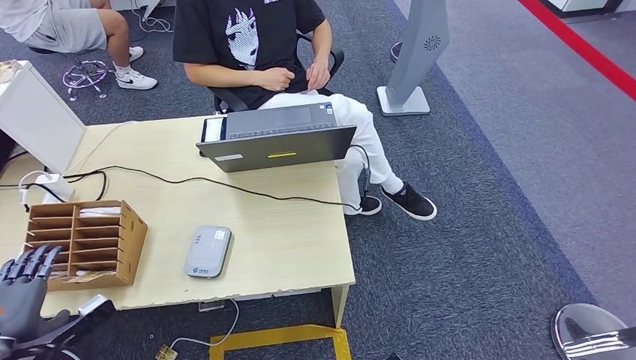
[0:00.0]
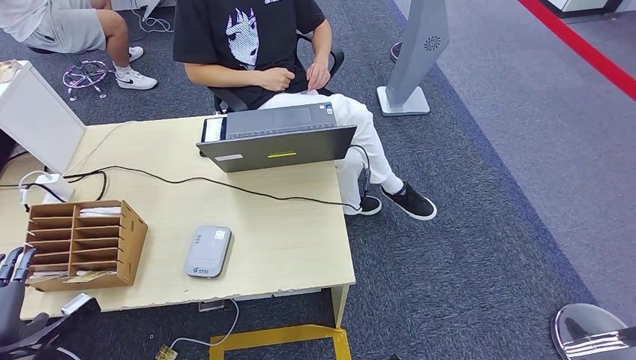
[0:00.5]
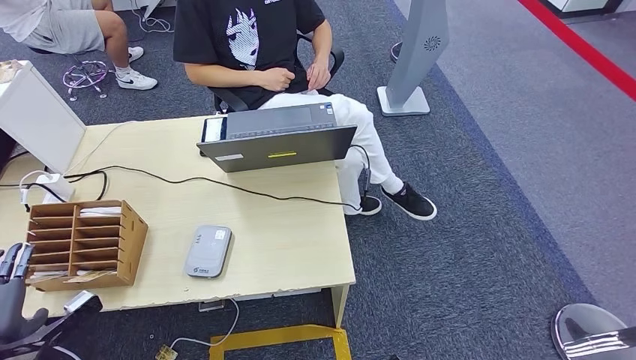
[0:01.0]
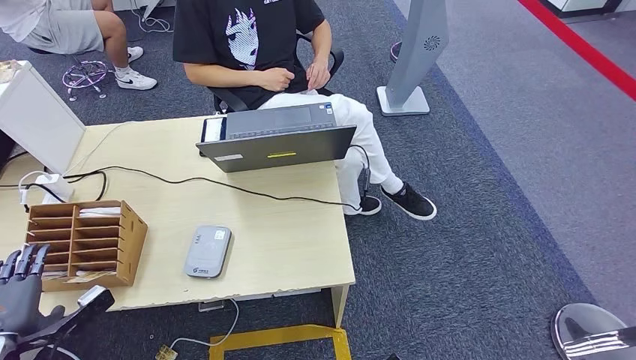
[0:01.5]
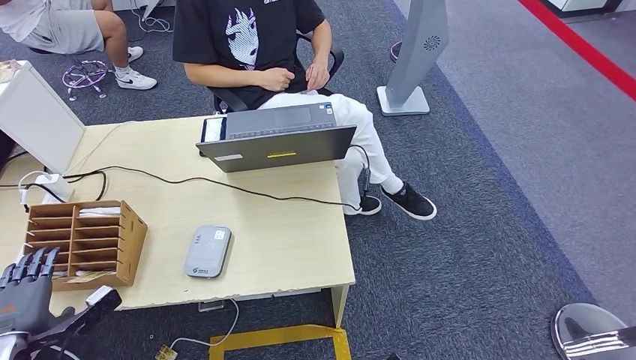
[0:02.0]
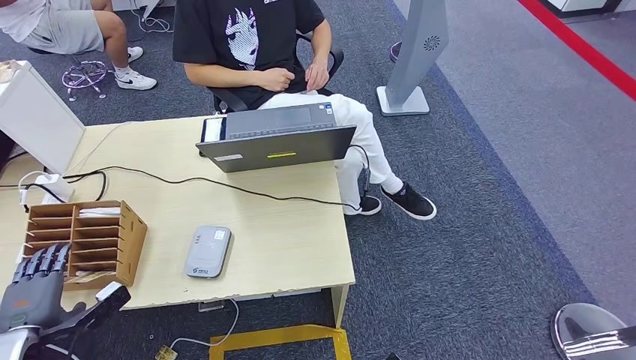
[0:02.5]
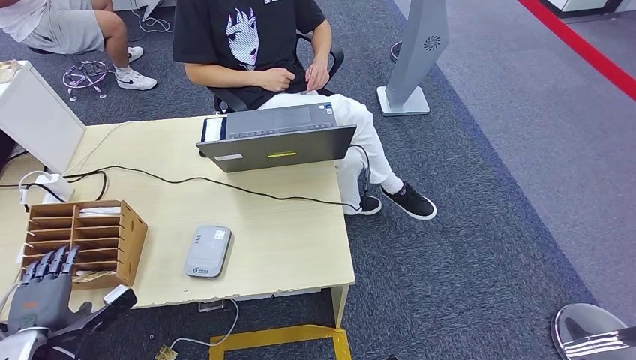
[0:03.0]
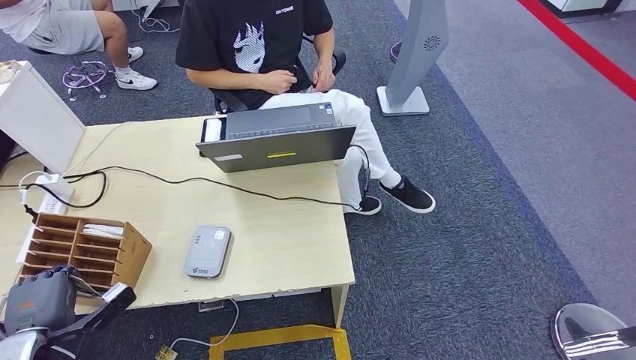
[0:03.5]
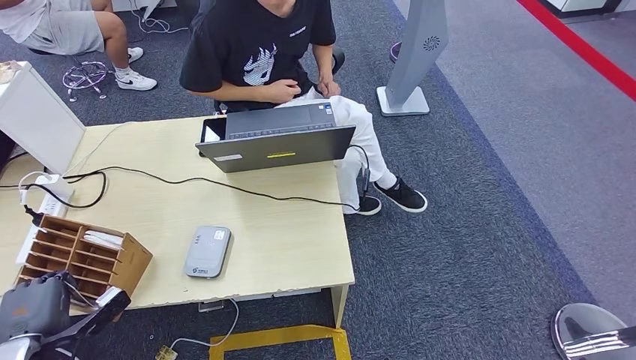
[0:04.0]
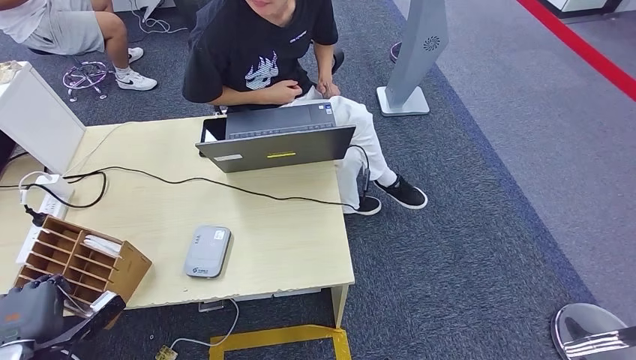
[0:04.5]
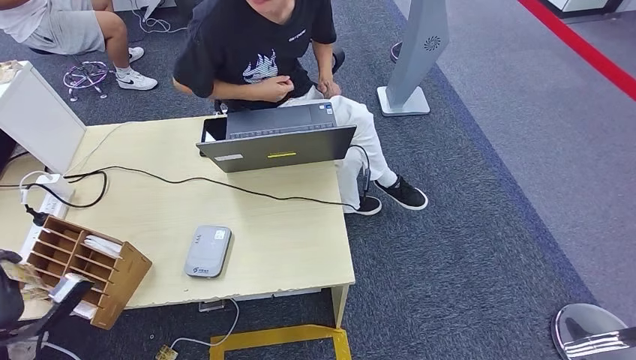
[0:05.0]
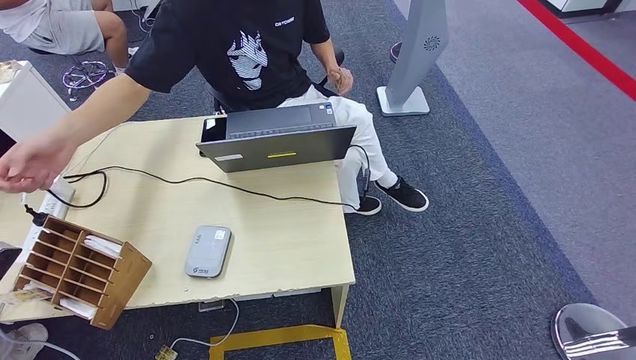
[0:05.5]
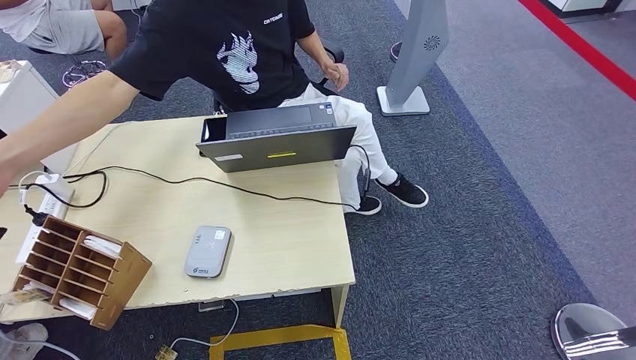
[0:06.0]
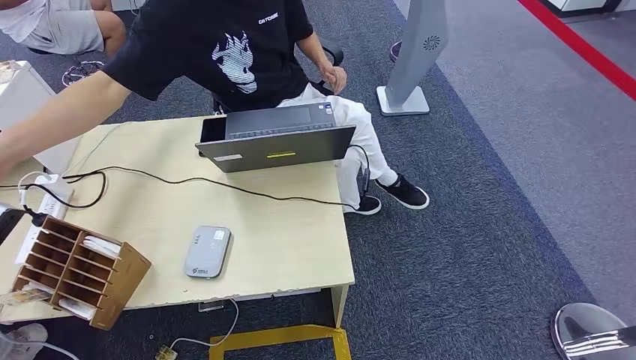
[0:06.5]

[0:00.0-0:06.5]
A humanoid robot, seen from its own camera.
Step, 0:00.0 to 0:04.5: Pick up the room key from the key card box.
Step, 0:05.0 to 0:06.0: Hand the room key to the person.
0:00.0 to 0:04.5: There are only small adjustments of the hands.
0:04.5 to 0:06.5: The left hand heads upward and forward, covering approximately 20 cm.

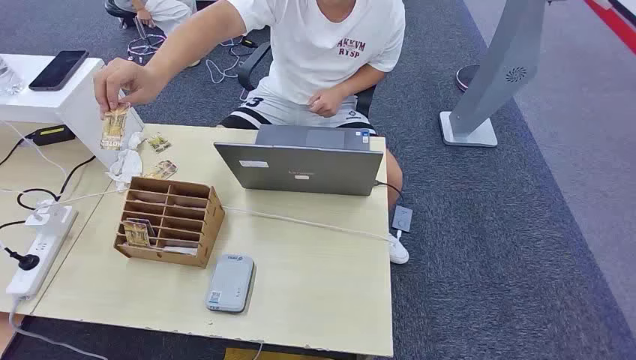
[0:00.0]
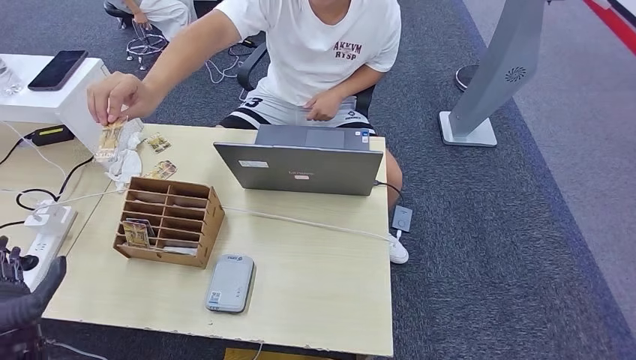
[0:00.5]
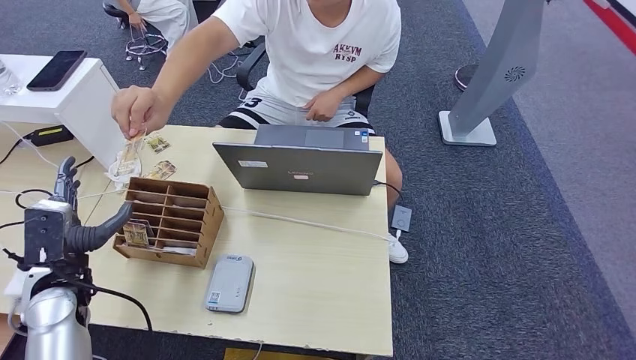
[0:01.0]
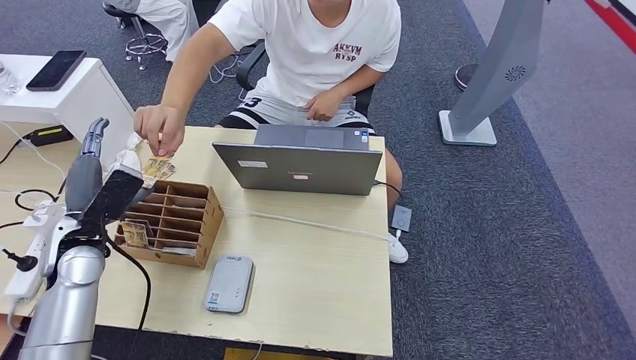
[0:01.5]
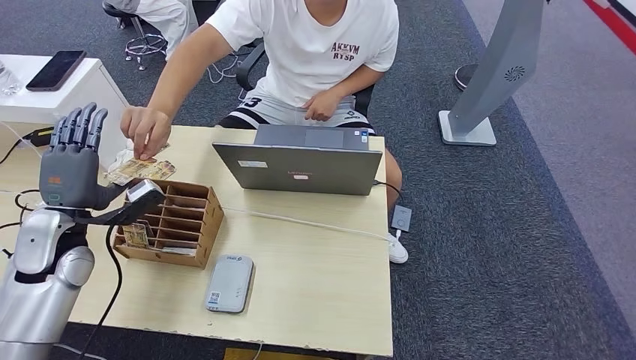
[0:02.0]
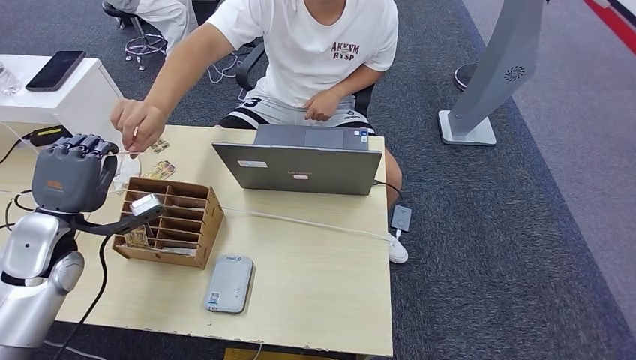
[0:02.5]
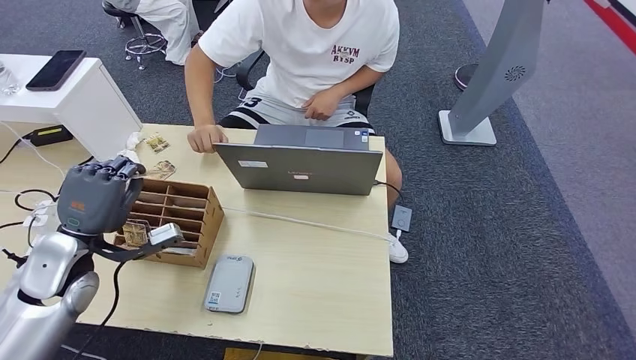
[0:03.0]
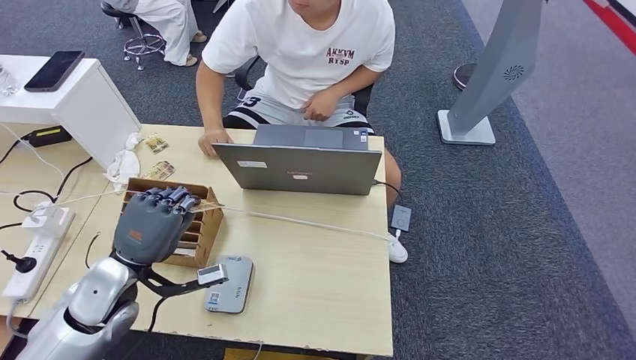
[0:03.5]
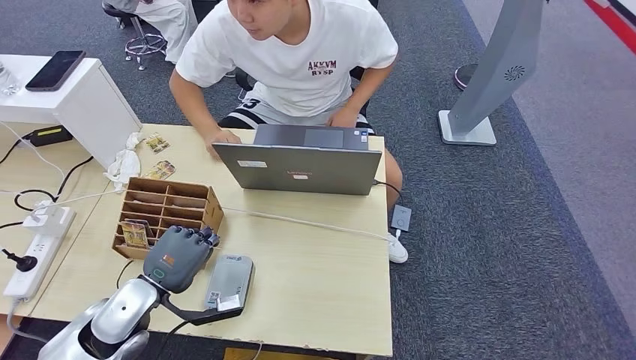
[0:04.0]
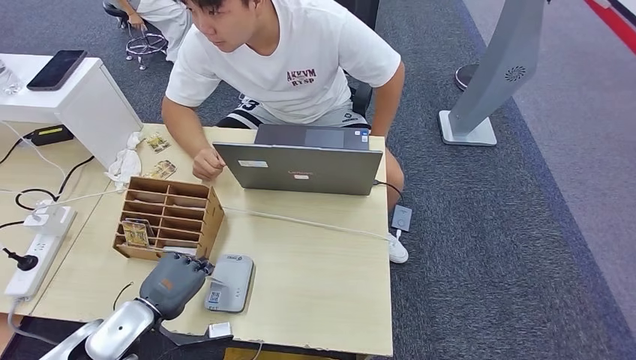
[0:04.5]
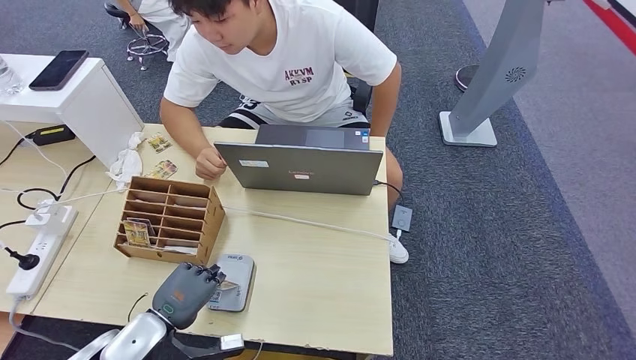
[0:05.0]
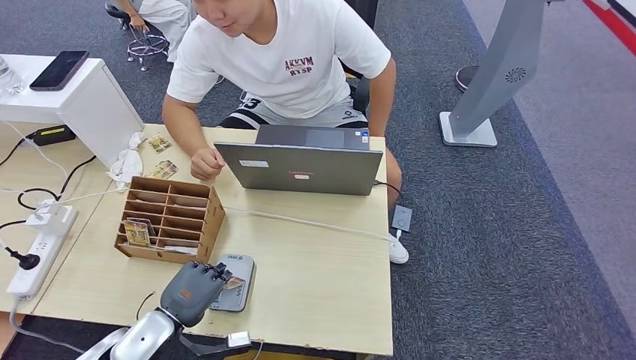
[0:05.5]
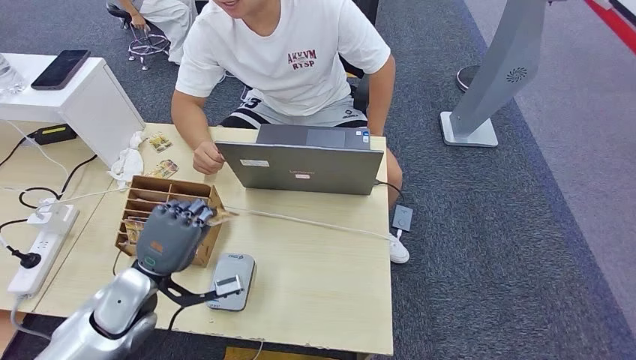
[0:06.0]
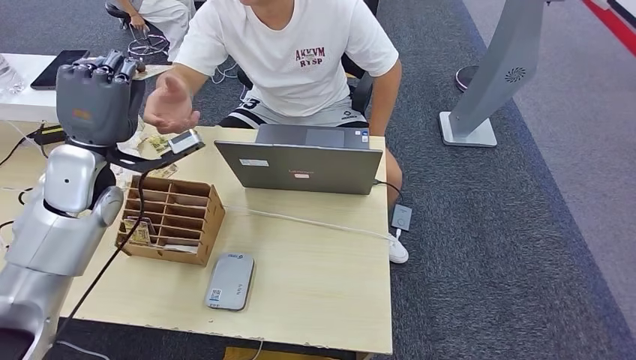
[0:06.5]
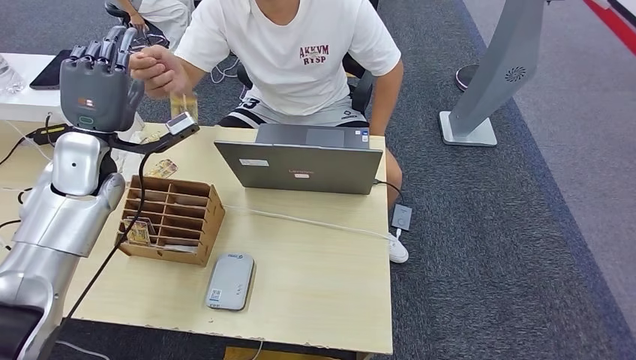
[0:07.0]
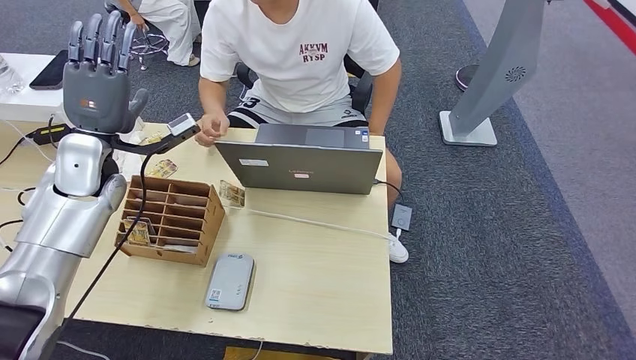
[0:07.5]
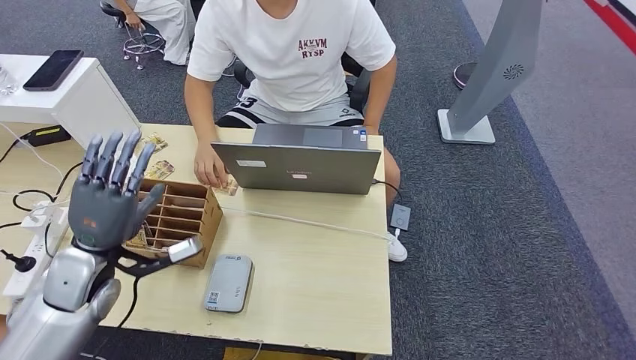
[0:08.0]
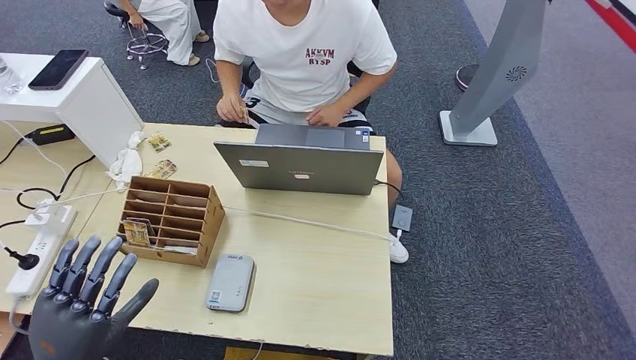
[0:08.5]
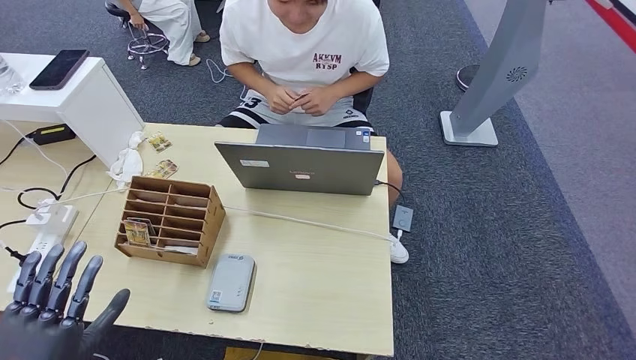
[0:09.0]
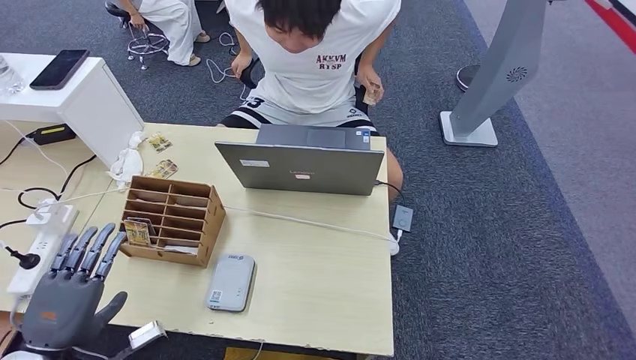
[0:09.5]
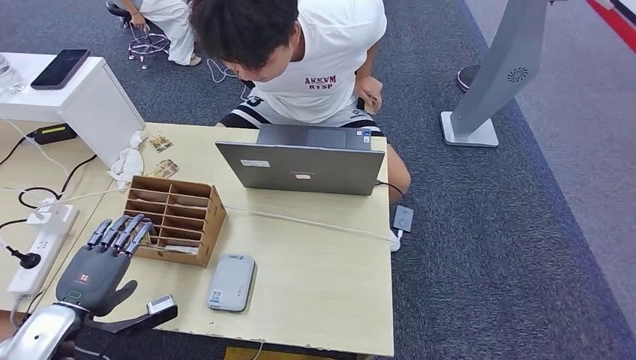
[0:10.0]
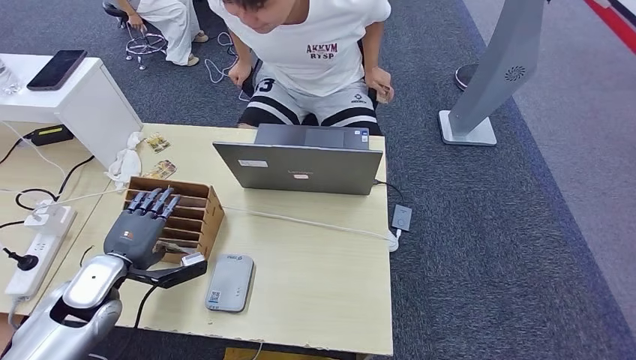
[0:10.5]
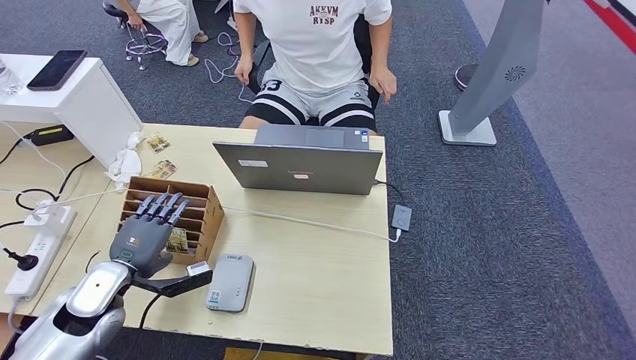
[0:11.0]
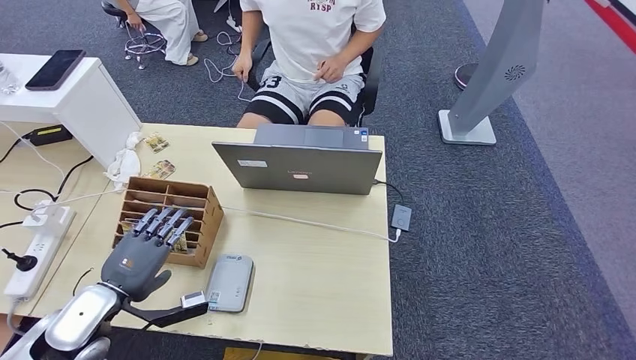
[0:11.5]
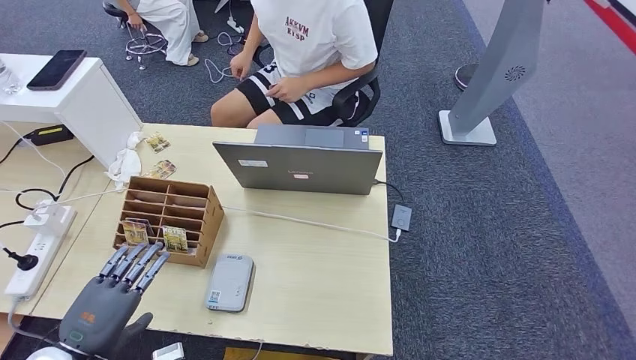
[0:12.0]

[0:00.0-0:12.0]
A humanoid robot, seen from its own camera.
Step, 0:00.0 to 0:03.0: Take the ID card from the person's hand.
Step, 0:03.5 to 0:05.0: Place the ID card on the card reader.
0:04.0 to 0:06.0: The left hand is displaced forward by approximately 5 cm.
0:10.0 to 0:12.0: The left hand shifts roughly 5 cm backward.
